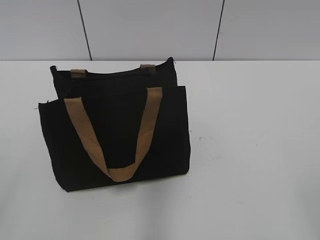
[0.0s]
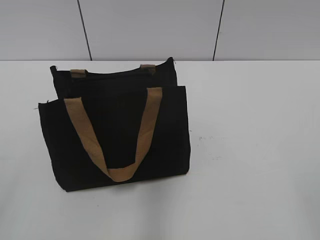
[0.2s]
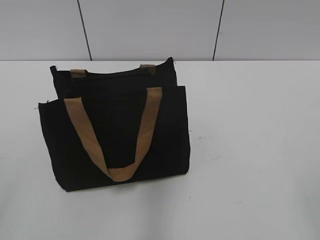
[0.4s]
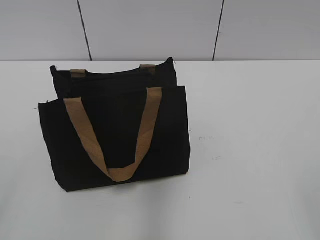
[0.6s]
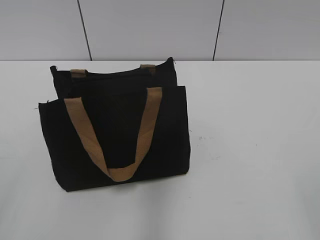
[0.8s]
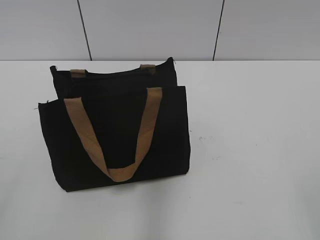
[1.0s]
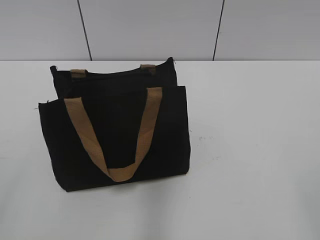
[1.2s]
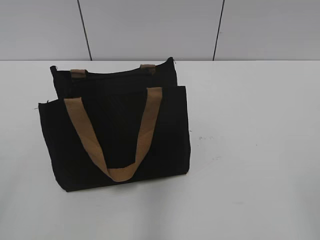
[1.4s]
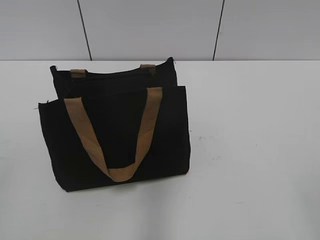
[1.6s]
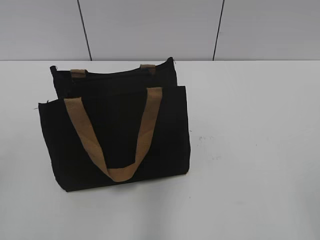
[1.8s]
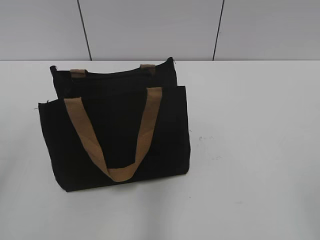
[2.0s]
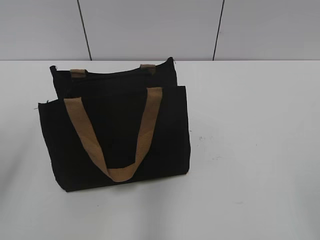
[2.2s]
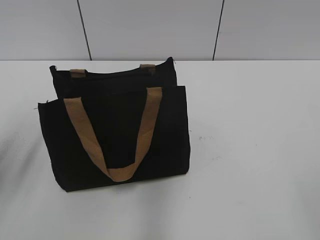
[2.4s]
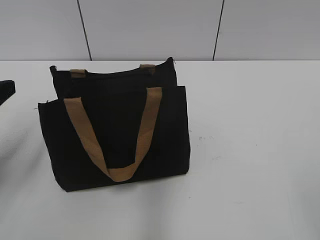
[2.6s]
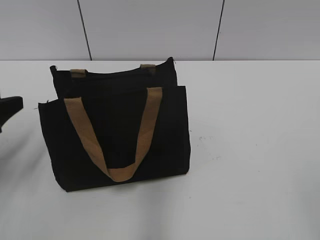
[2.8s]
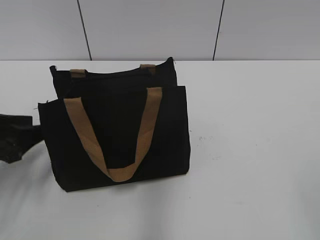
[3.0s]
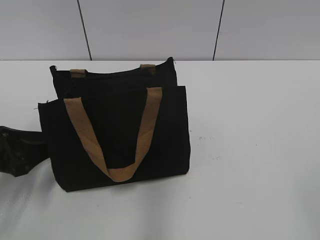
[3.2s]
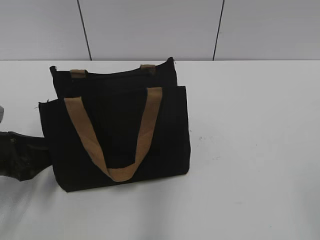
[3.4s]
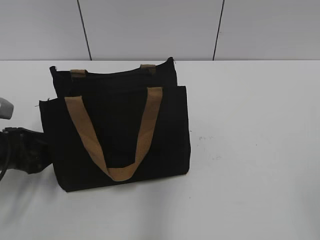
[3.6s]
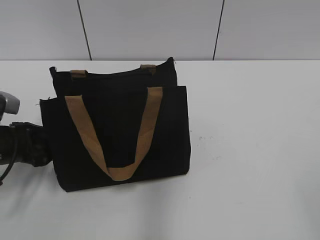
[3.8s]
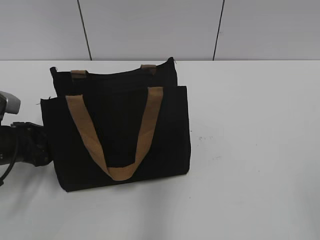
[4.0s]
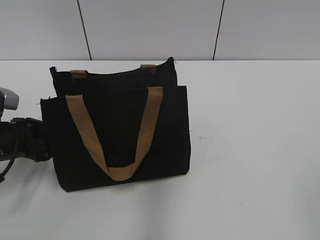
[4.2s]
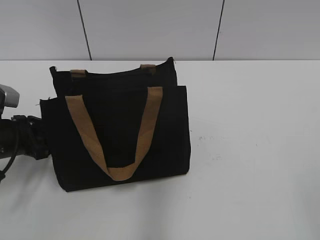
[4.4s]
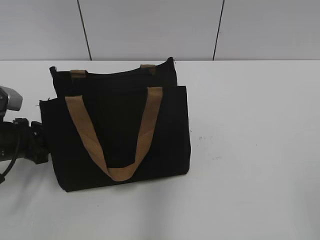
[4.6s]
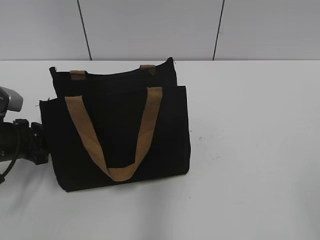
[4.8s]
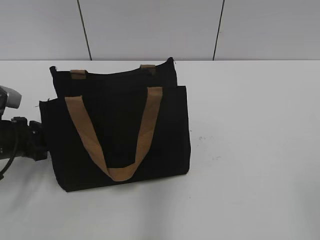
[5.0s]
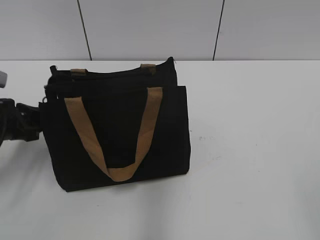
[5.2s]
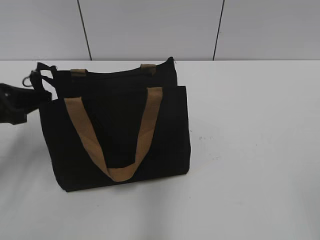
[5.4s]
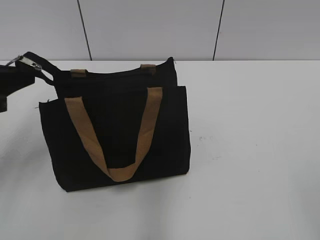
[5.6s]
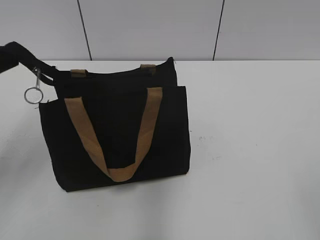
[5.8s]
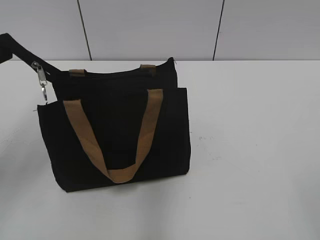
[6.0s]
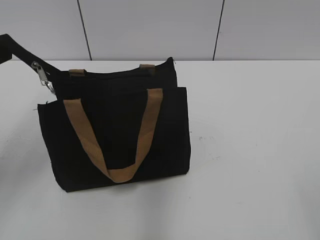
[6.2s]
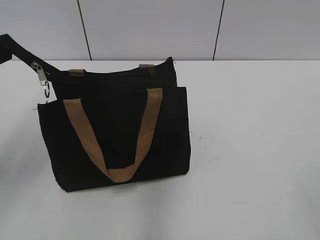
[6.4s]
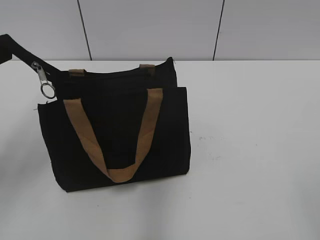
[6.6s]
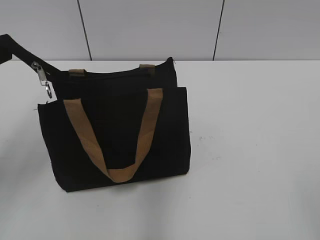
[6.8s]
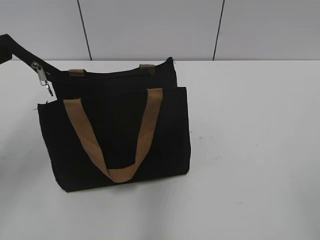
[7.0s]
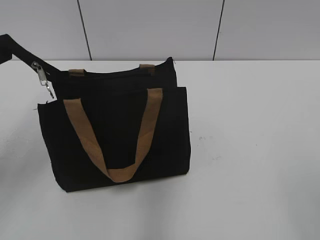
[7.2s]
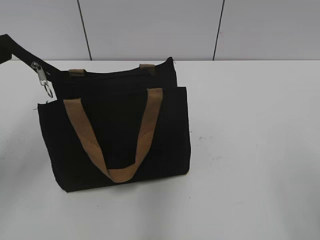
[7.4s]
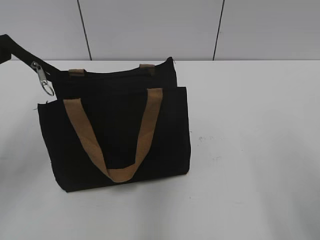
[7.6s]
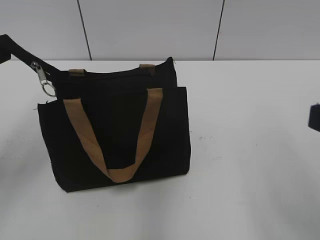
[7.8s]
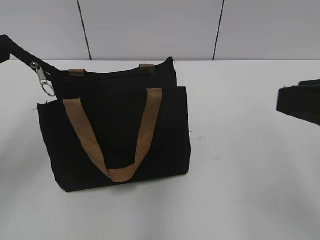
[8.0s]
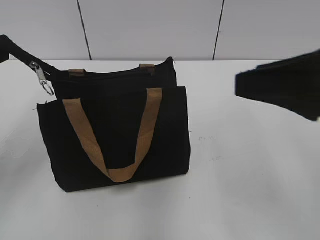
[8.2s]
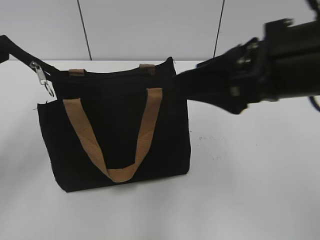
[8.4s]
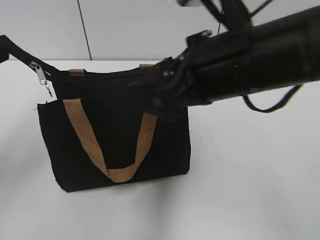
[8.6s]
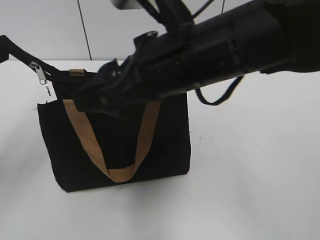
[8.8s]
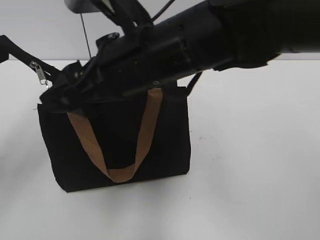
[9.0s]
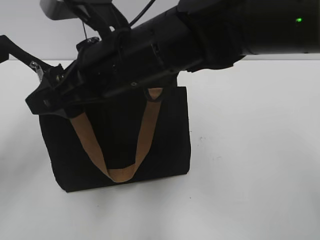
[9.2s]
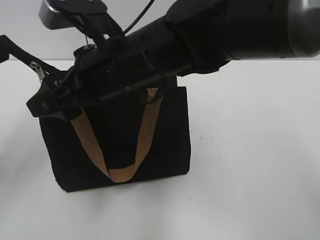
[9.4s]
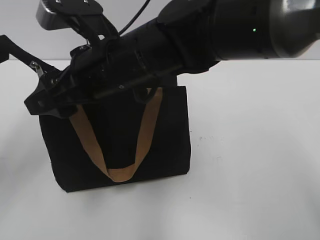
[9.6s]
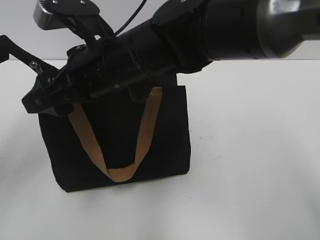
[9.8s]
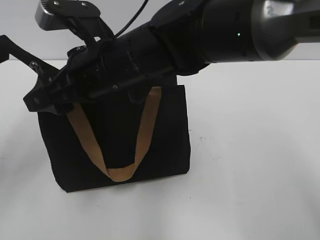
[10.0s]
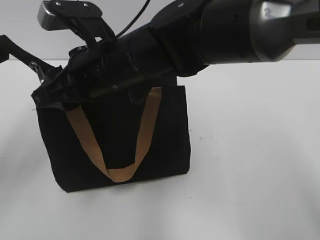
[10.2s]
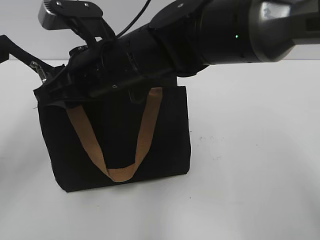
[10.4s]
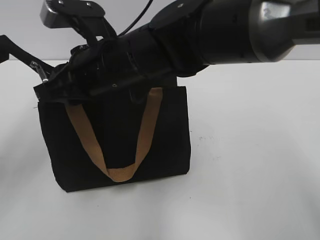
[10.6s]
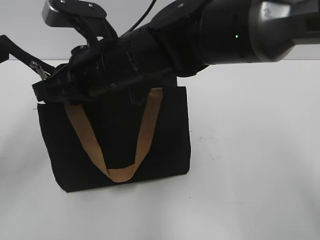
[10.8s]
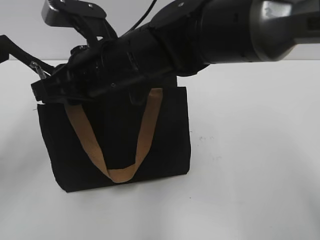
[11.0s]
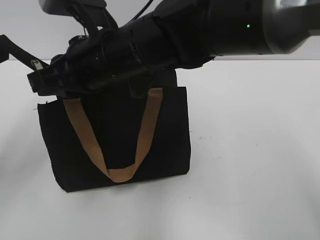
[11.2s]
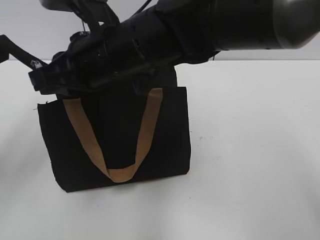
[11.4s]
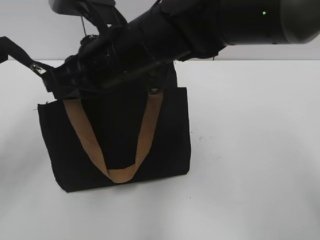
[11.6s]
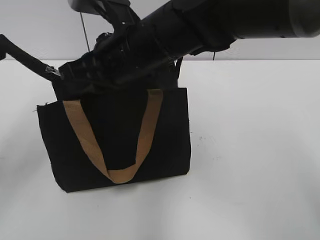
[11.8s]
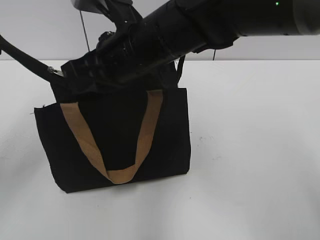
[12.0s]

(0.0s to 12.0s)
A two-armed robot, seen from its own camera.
1.6s - 3.0s: The left gripper is displaced forward by some 20 cm.
3.0s - 4.4s: The left gripper moves downward and forward, some 15 cm.
4.4s - 6.0s: The left gripper travels upward by about 10 cm, and closes its fingers.
6.0s - 7.6s: The left gripper heads upward and backward, covering about 10 cm.
7.6s - 9.0s: The right gripper travels forward and to the left by roughly 25 cm.
9.0s - 10.4s: The right gripper travels to the left and forward by about 20 cm.
10.4s - 12.0s: The right gripper closes its fingers.

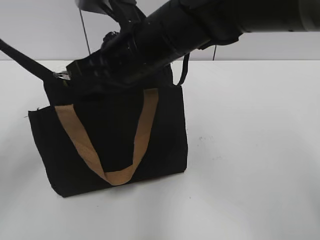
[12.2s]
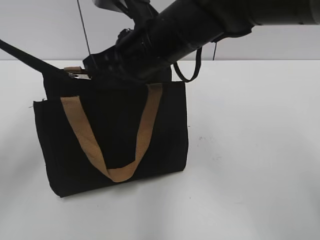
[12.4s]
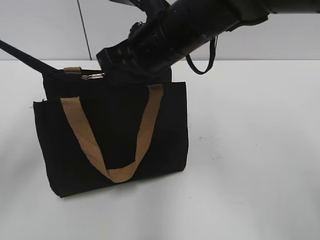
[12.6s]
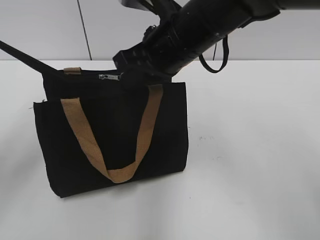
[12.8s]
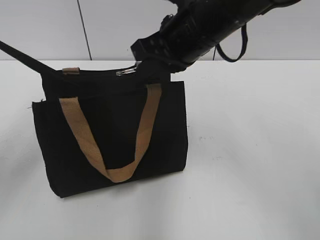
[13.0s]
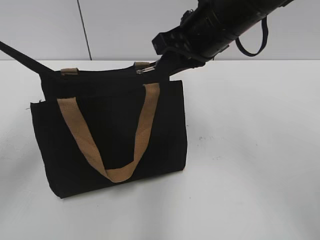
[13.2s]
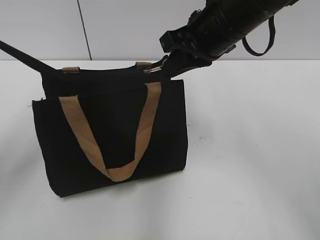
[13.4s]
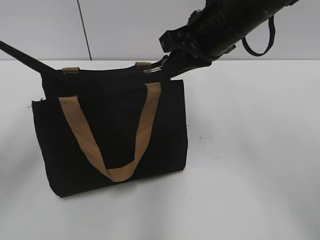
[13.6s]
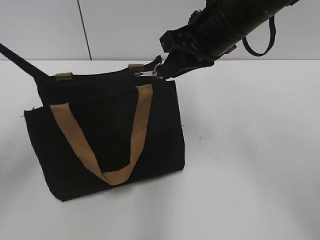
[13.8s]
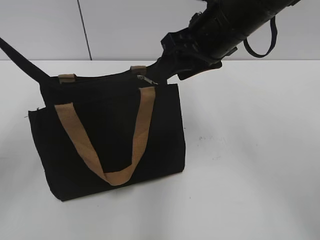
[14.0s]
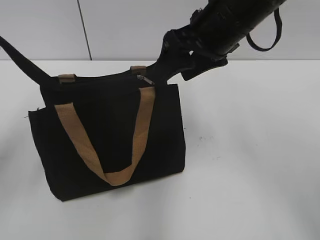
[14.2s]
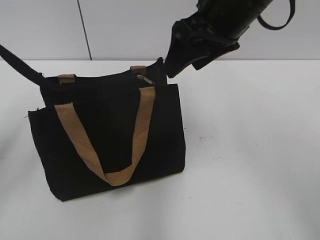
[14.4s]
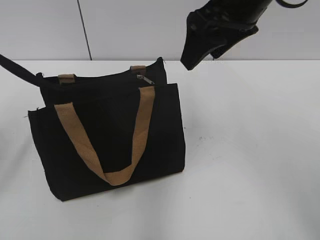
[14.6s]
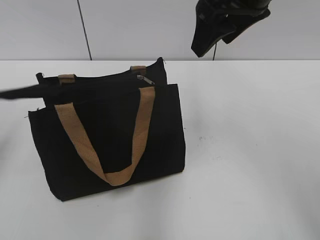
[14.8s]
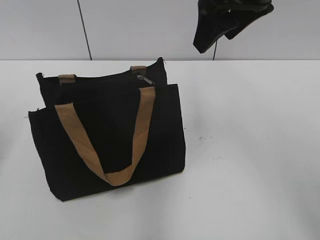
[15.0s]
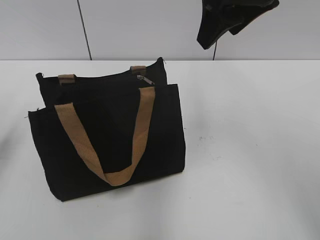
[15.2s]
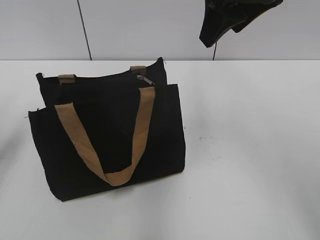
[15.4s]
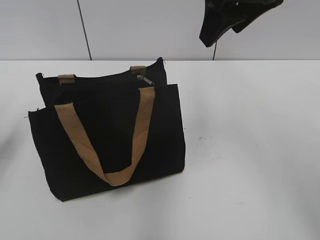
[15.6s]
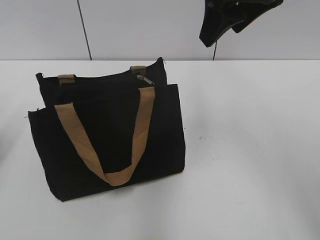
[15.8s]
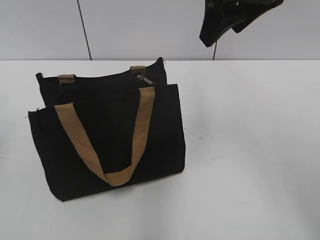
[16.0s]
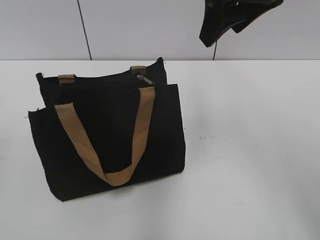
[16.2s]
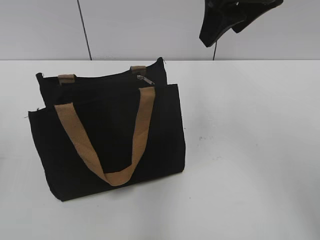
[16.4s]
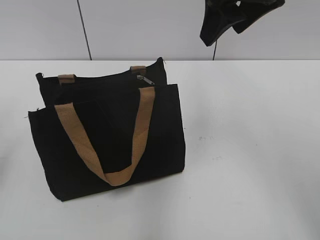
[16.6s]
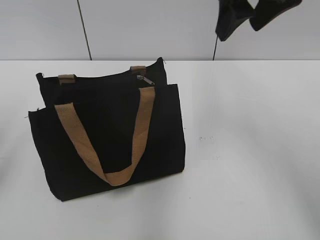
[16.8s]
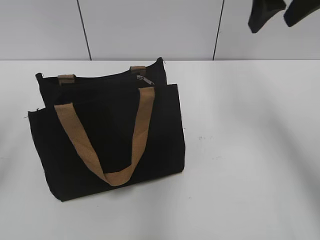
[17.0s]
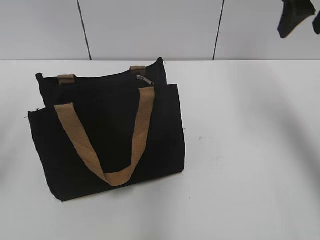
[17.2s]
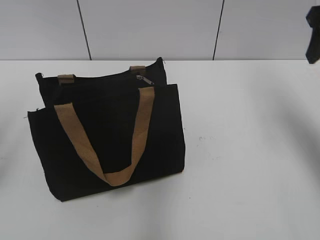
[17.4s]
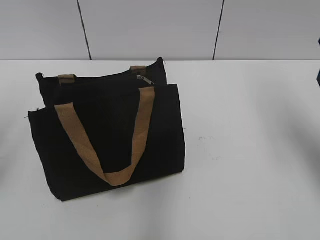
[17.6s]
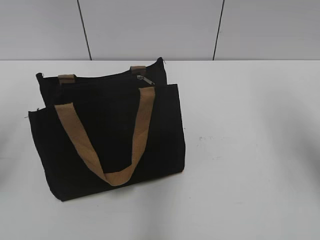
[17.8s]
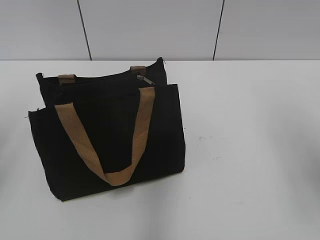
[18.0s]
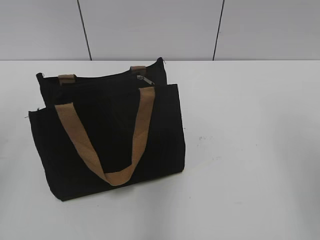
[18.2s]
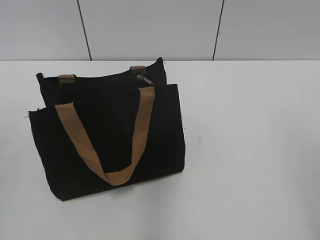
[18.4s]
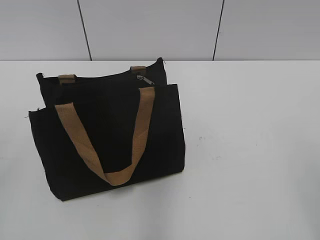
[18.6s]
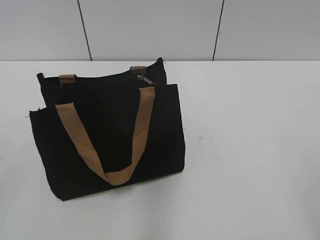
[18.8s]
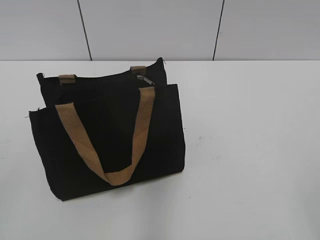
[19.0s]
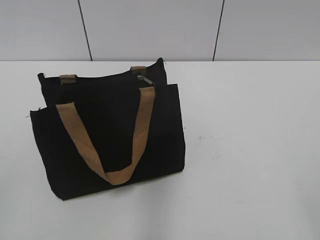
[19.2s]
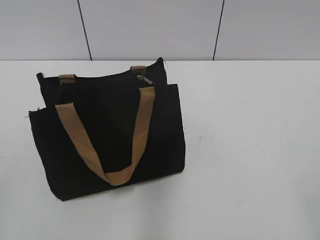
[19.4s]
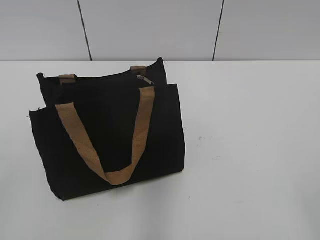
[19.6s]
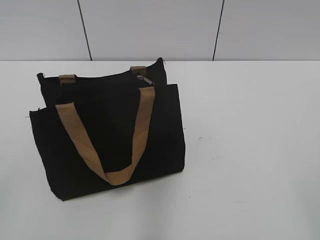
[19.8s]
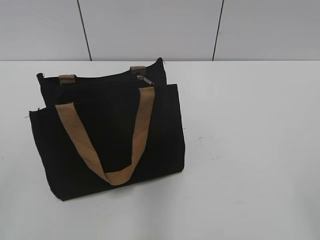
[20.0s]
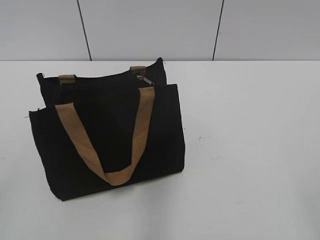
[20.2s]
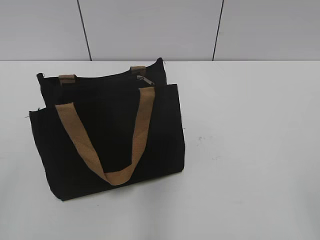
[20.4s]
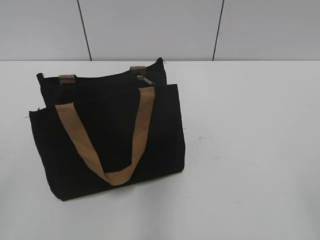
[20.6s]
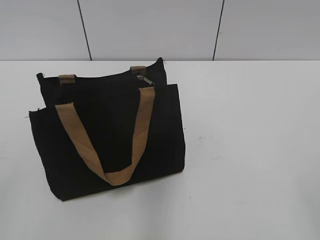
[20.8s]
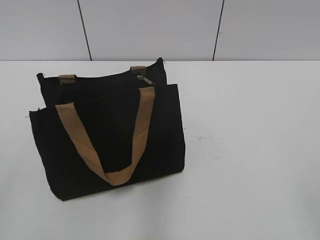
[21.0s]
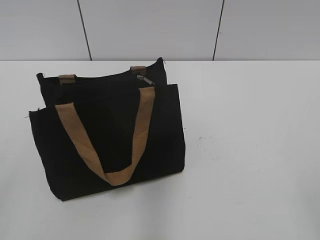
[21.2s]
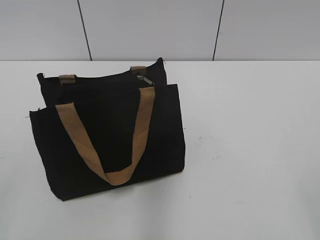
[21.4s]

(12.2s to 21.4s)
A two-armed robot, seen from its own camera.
Step, 12.2s - 14.2s: Zip up the bag with your right hand.
Step, 14.4s - 14.8s: Grab the zipper with your left hand.
12.2s - 13.8s: The right gripper shifts approximately 10 cm to the right.
13.8s - 15.2s: The right gripper is displaced upward by about 5 cm, and opens its fingers. Meanwhile the left gripper opens.
15.2s - 16.8s: The left gripper travels downward by approximately 10 cm.
16.8s - 18.4s: The right gripper heads to the right and backward, covering roughly 20 cm.

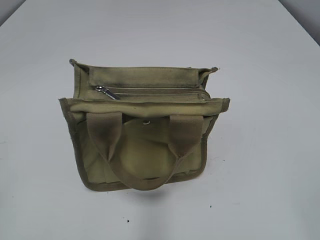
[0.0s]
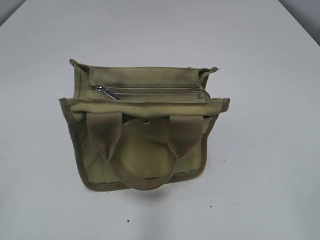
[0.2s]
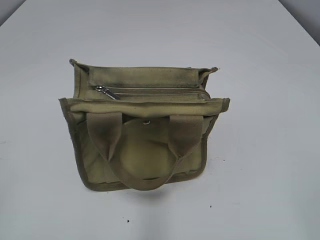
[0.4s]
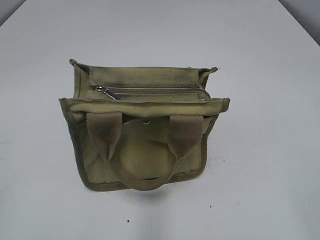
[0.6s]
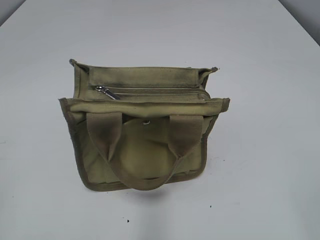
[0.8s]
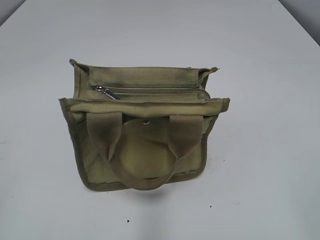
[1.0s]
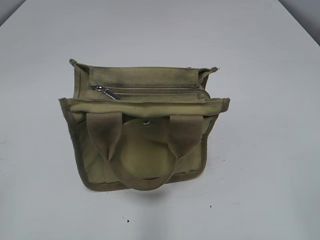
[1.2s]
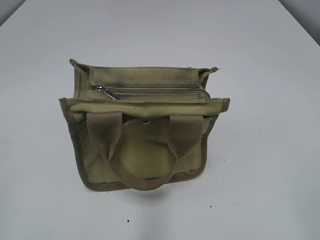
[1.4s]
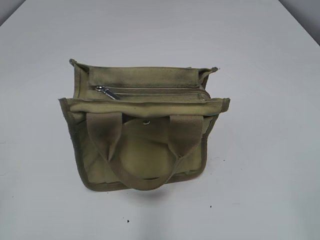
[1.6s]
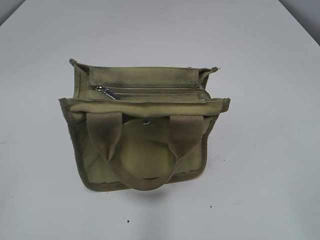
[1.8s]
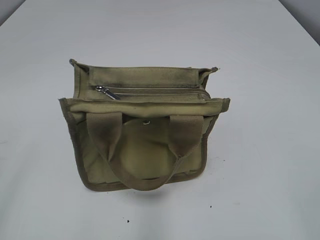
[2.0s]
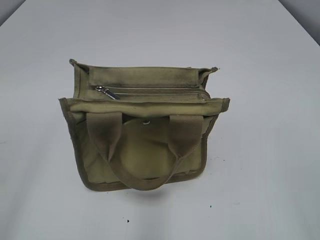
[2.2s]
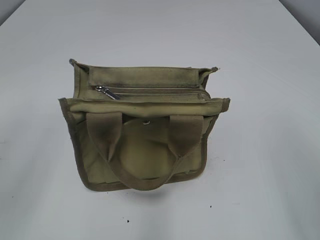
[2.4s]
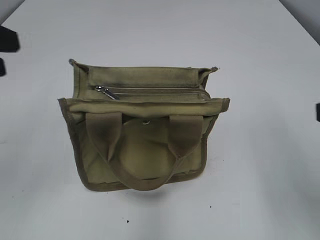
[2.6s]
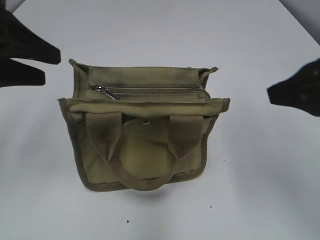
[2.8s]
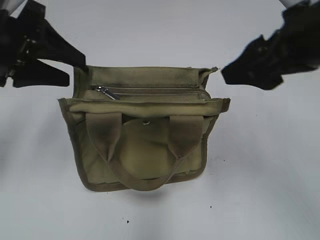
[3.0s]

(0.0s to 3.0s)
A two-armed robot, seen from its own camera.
1.6s - 3.0s: The left gripper travels forward by some 25 cm; the right gripper is displaced forward and to the left by some 25 cm.
